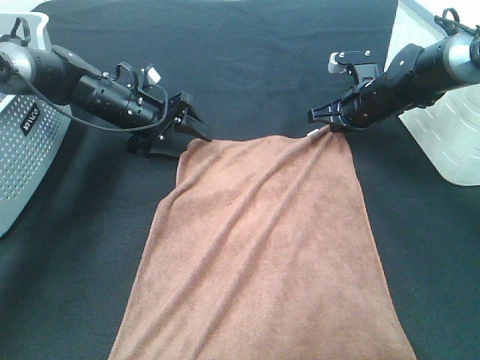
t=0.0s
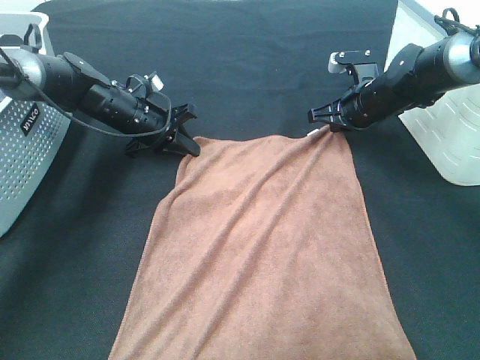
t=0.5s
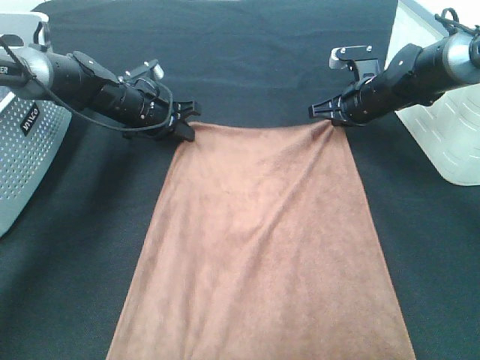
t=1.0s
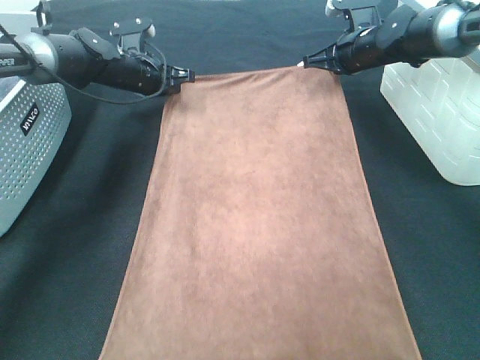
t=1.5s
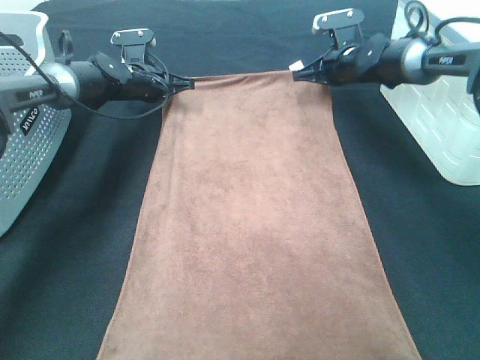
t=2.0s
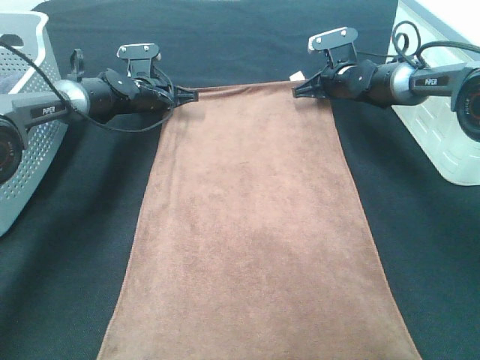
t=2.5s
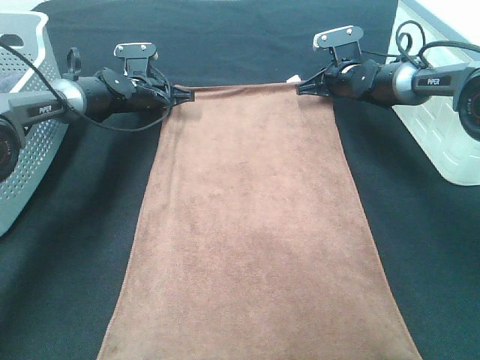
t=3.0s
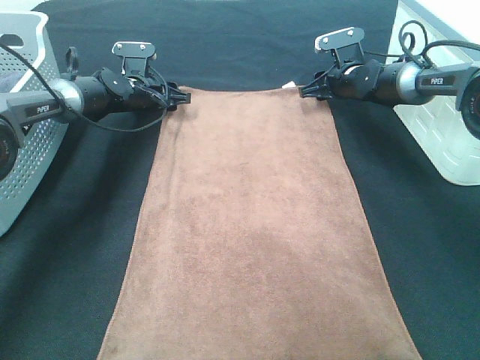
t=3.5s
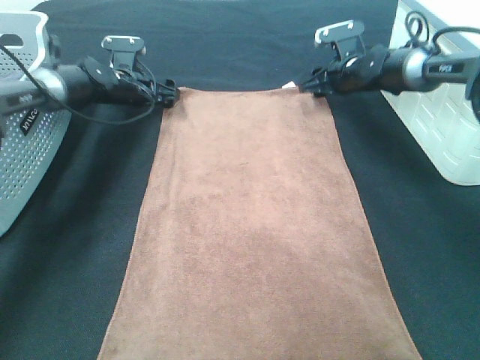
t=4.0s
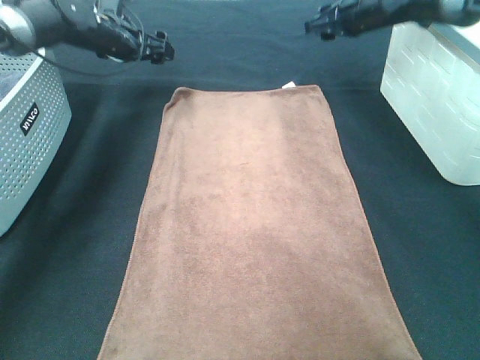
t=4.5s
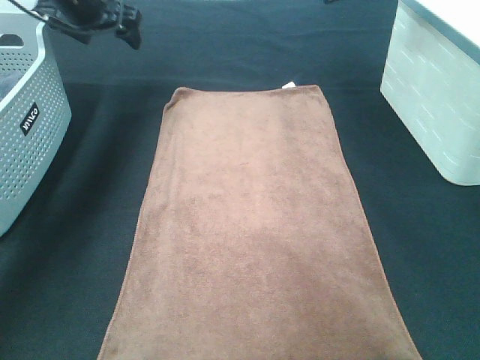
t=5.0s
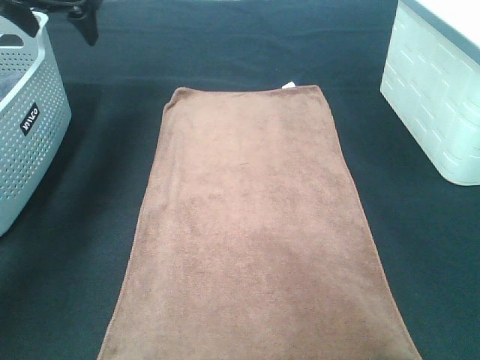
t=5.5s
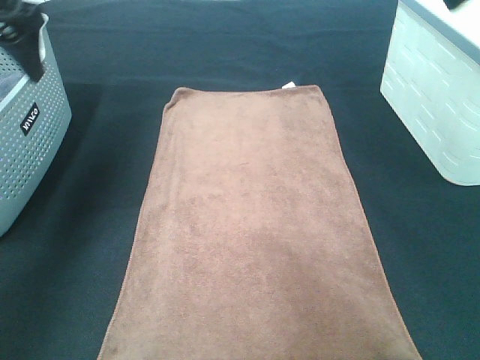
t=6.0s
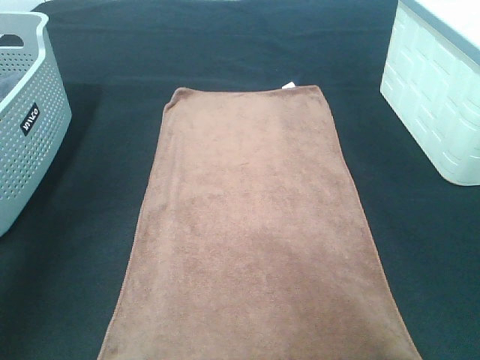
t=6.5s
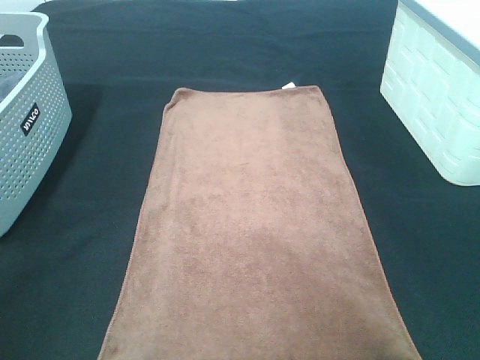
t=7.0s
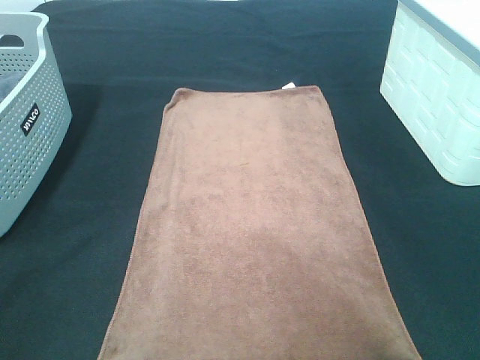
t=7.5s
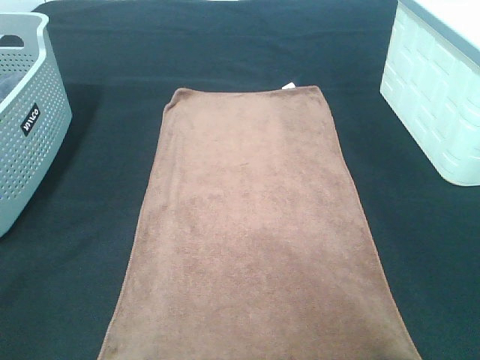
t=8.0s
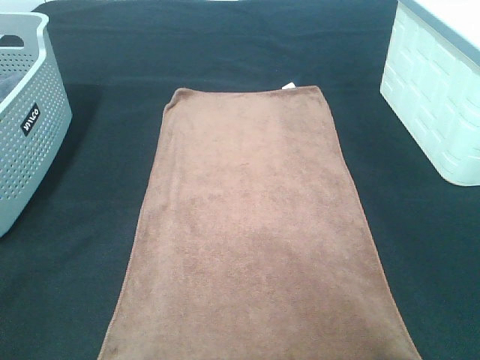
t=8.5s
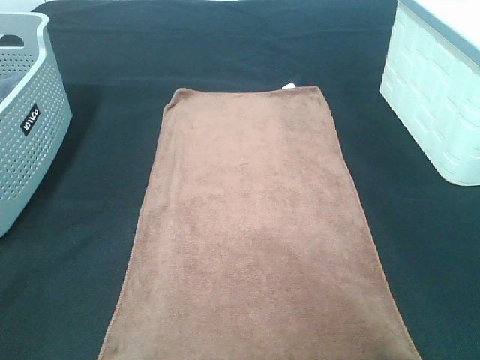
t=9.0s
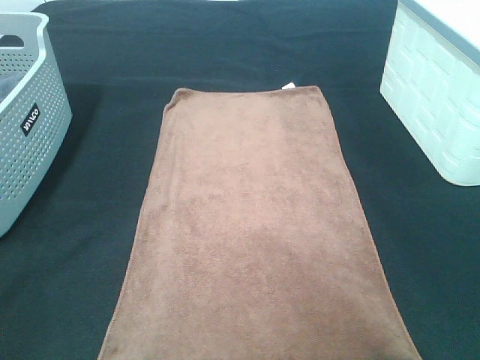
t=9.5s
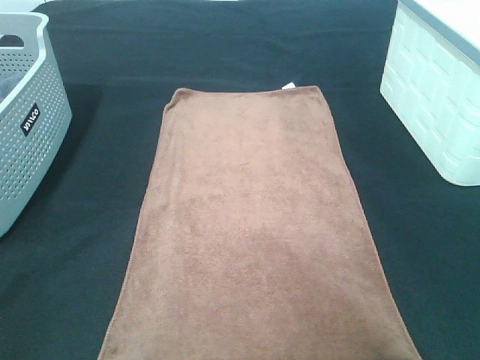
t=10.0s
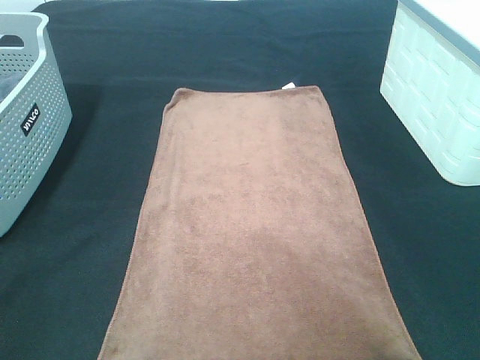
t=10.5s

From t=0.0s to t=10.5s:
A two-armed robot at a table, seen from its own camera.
Task of the whole recording: Remove the towel and place it.
From t=0.0s to t=2.0s: Both grippers travel together forward, roughly 10 cm. The left gripper closes up.
From t=2.0s to t=4.0s: The right gripper opens; the left gripper opens up.
From t=4.0s to t=6.5s: Both grippers travel together backward and upward, approximately 50 cm.
From t=6.5s to t=8.5s: The left gripper shifts roughly 20 cm backward. The right gripper goes about 15 cm backward and downward.
From t=8.5s to t=10.5s: Both grippers stay put.
